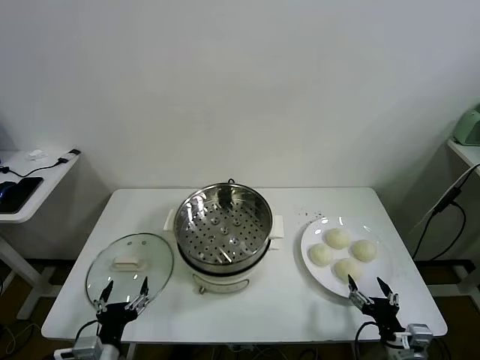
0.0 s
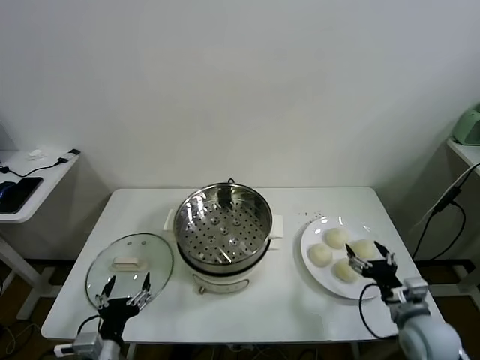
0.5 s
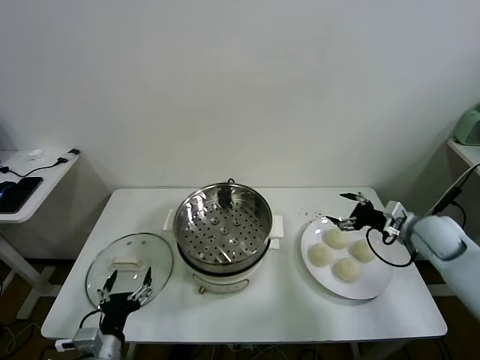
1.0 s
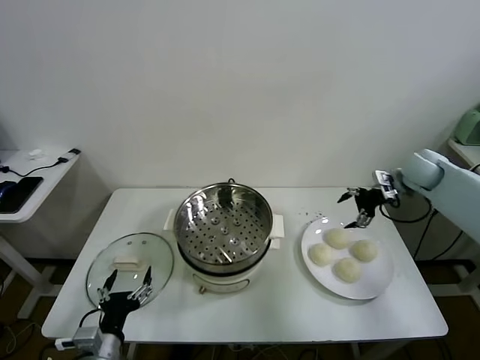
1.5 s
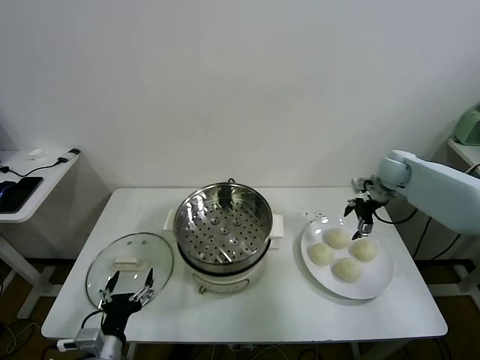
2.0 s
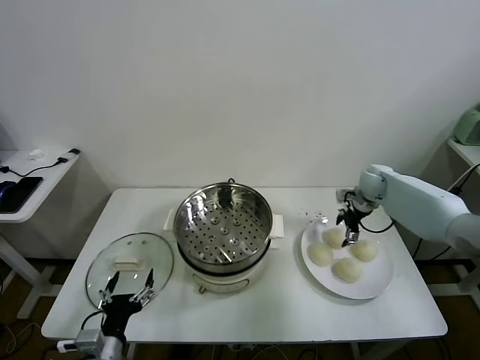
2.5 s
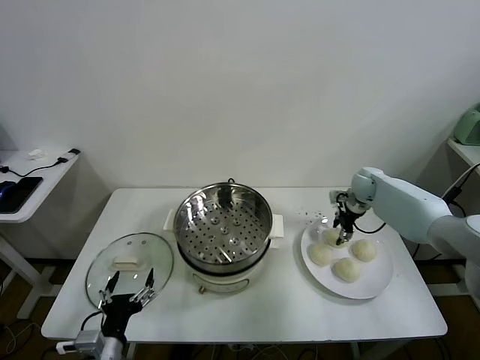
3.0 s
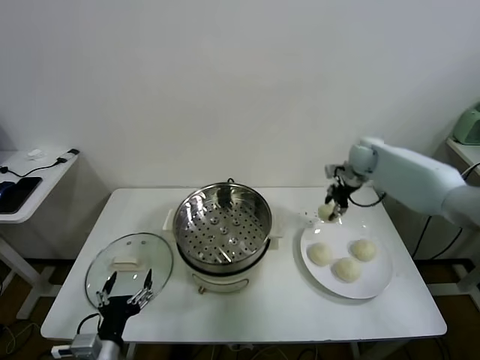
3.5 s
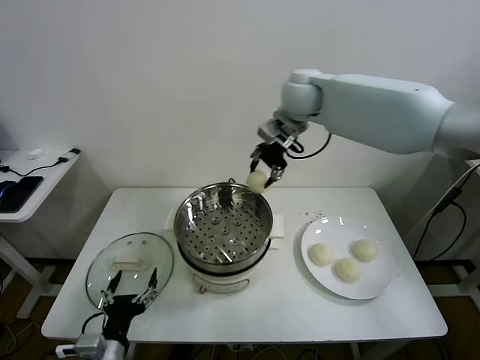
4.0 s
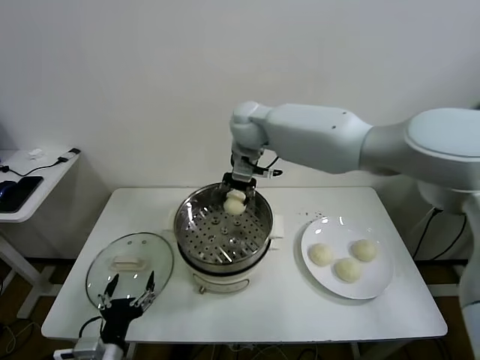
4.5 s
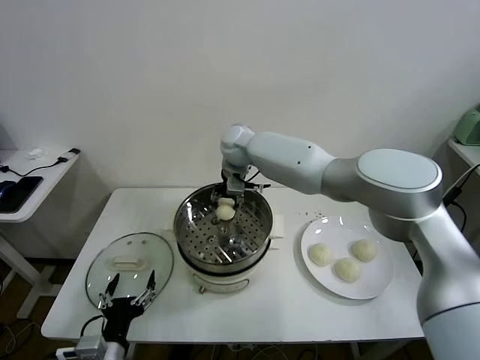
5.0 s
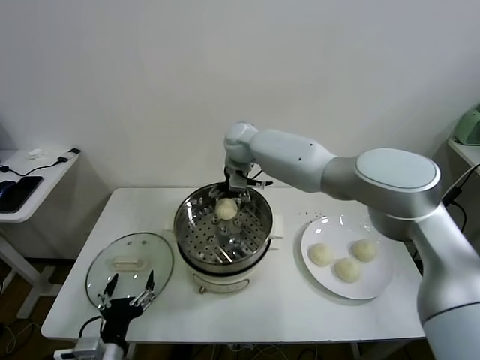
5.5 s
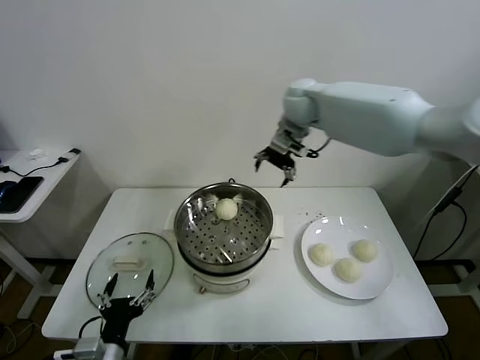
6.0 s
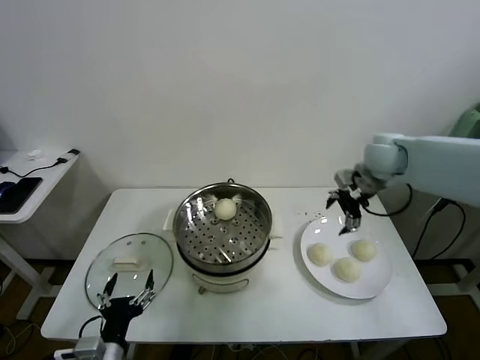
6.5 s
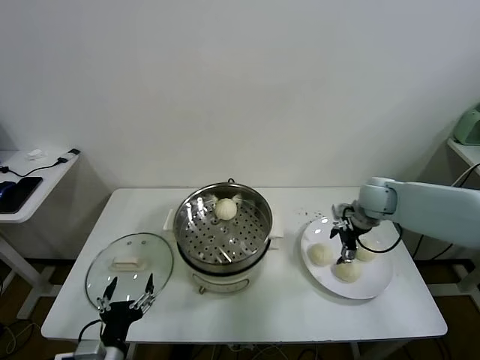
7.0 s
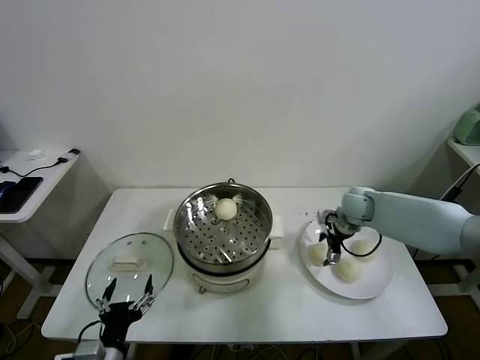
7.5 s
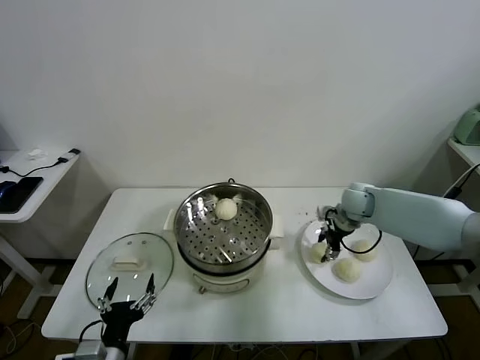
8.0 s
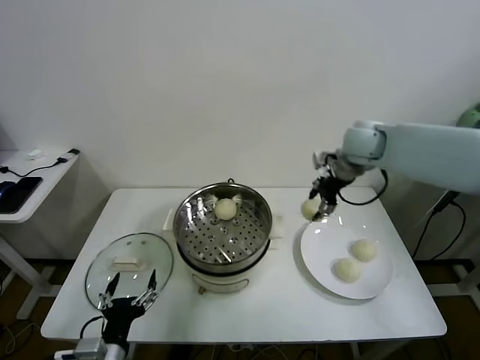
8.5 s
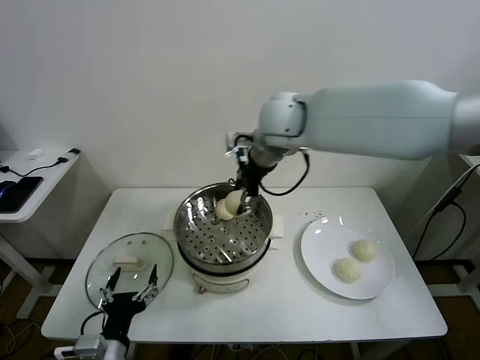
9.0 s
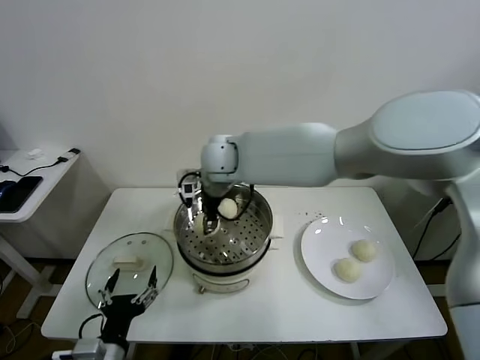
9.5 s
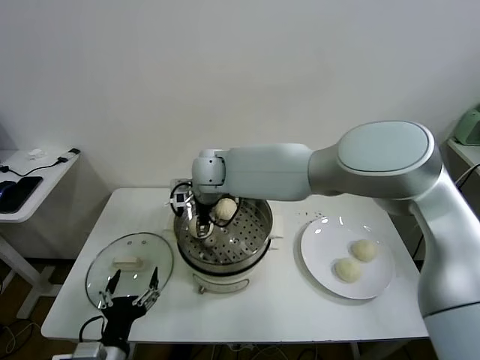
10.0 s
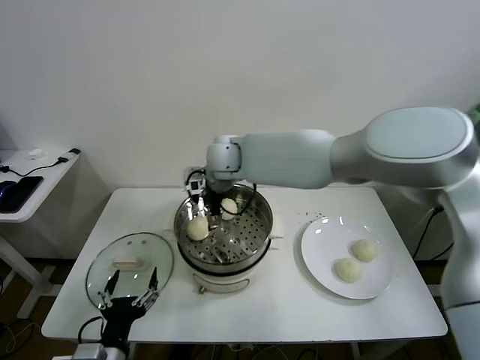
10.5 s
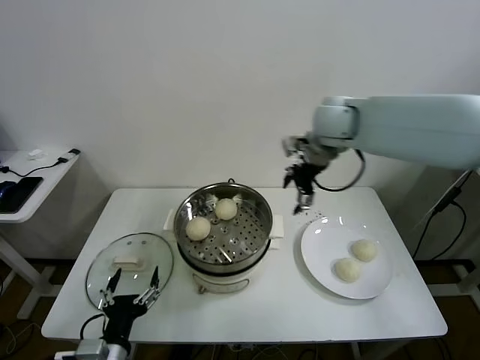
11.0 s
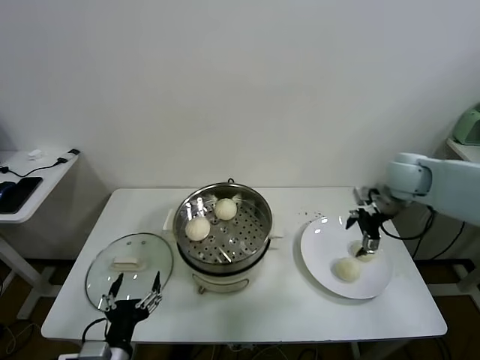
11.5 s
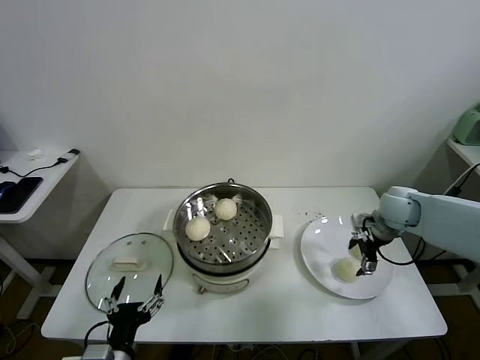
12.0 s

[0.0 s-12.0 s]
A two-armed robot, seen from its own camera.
Task of the whole recording: take steamed baozi put them in steamer.
Step, 0.0 to 2.5 s: Grasp the baozi in the plate with right gripper.
Step, 3.0 to 5.5 s: Place the baozi on the steamer with right gripper.
Step, 6.0 to 7.5 s: Grasp the baozi in the plate with right gripper.
Step, 8.0 to 10.0 s: Place the baozi on the steamer with right gripper.
2.0 to 4.0 s: The right gripper moves to the left and upward, about 35 cm, and closes.
4.0 to 6.0 s: The right gripper is displaced to the right by about 10 cm, and opens up.
6.0 to 8.0 s: The right gripper heads downward and to the right, covering roughly 25 cm, and closes.
8.0 to 10.0 s: The right gripper travels to the left by about 40 cm.
10.0 to 12.0 s: The right gripper moves to the right, about 40 cm, and opens its fingers.

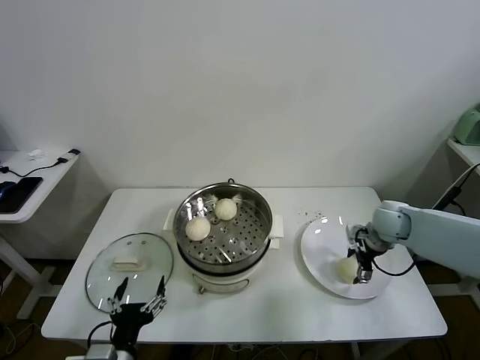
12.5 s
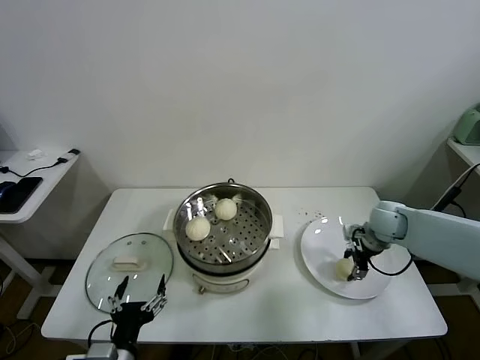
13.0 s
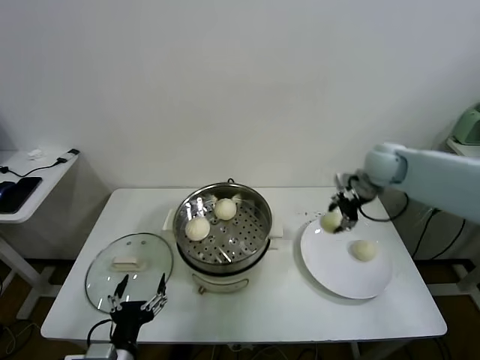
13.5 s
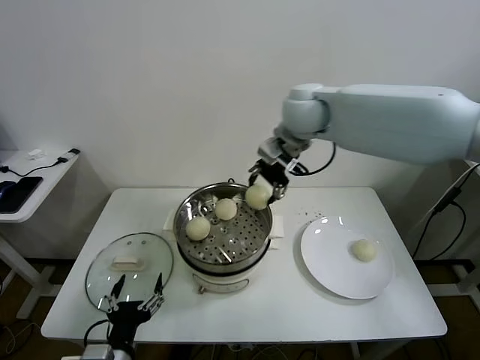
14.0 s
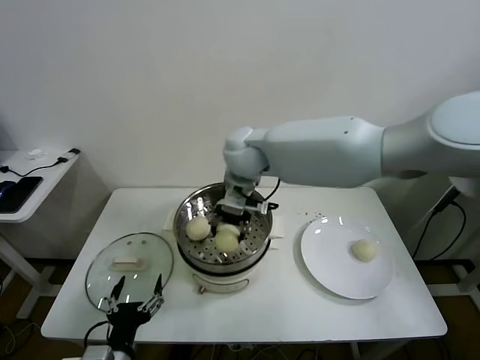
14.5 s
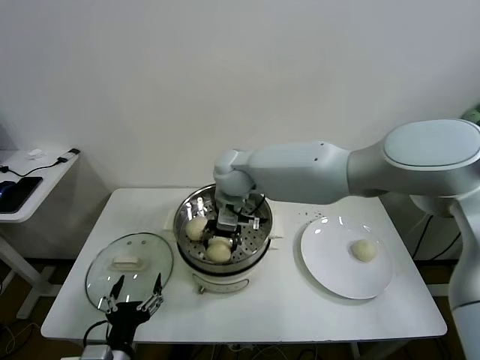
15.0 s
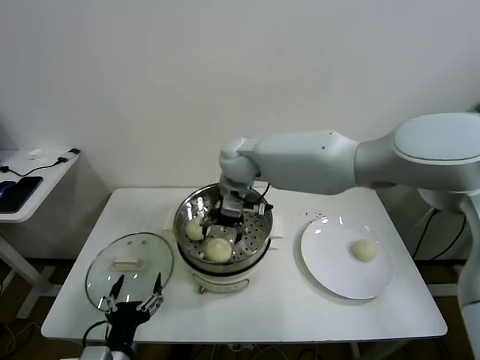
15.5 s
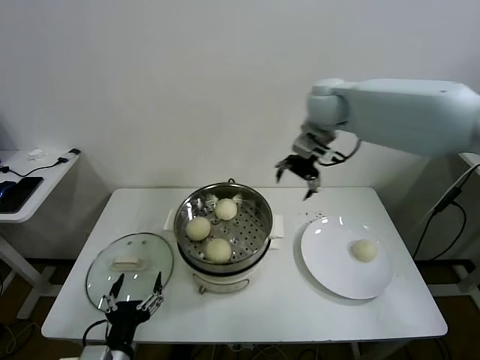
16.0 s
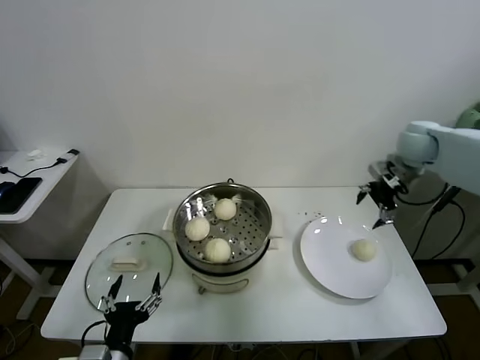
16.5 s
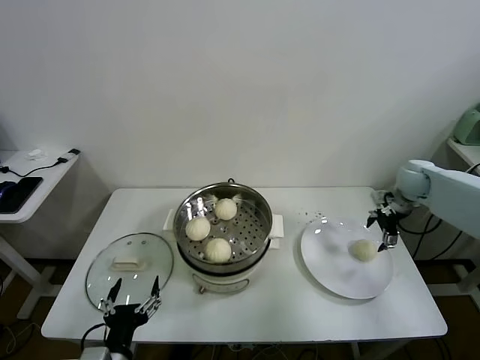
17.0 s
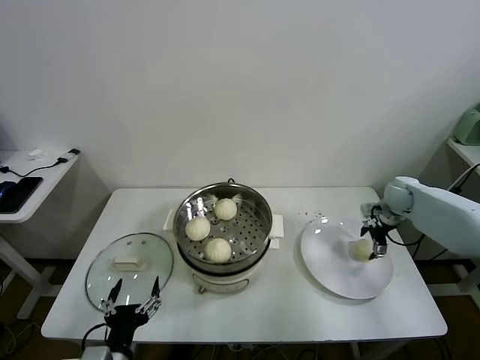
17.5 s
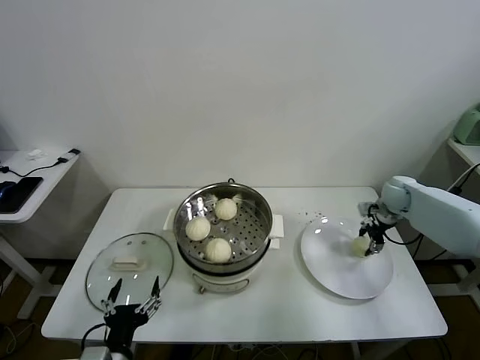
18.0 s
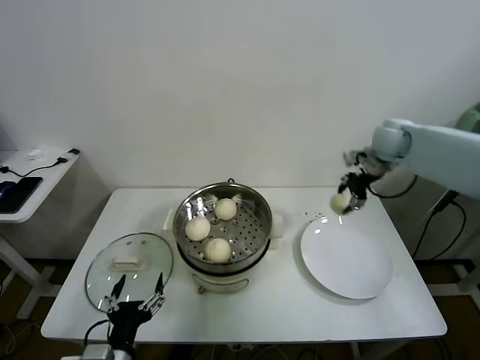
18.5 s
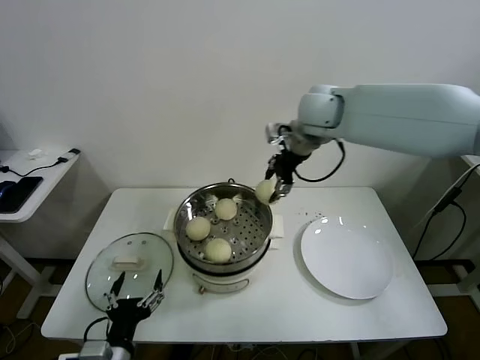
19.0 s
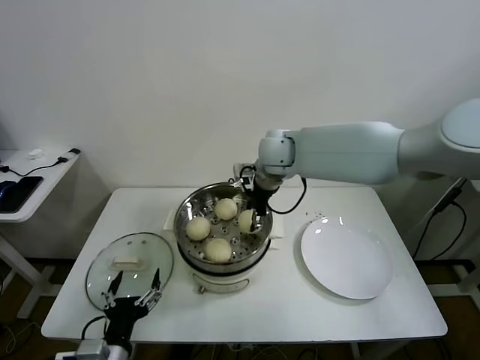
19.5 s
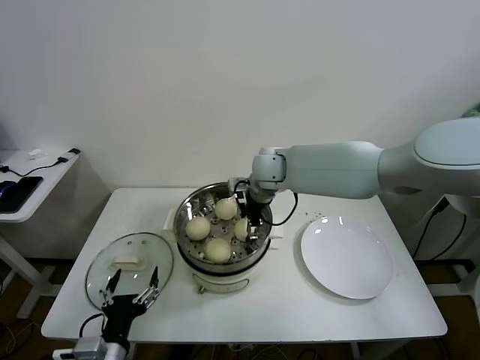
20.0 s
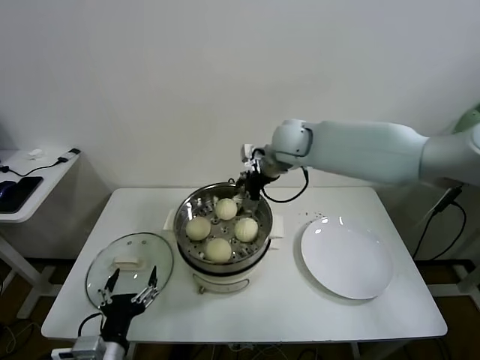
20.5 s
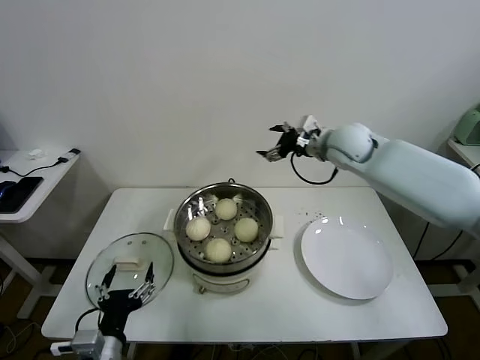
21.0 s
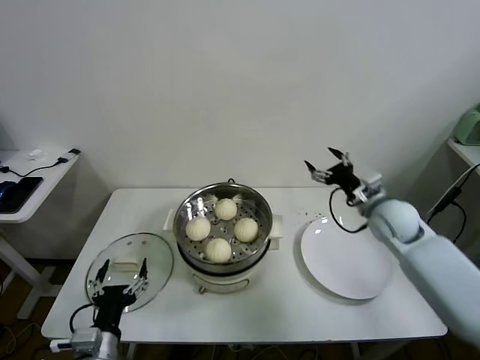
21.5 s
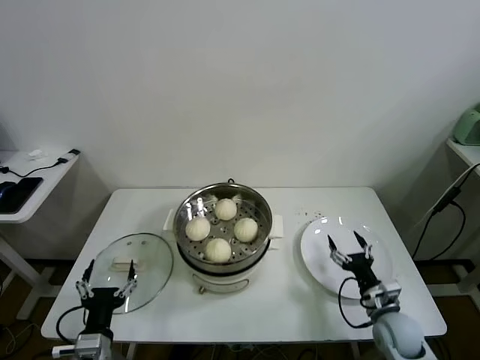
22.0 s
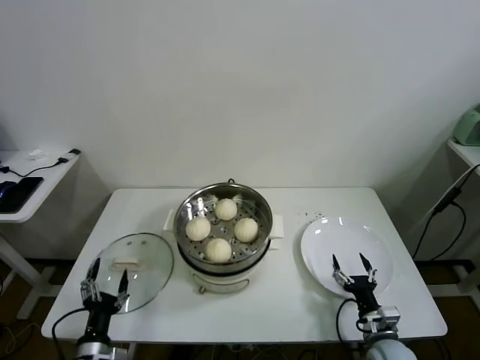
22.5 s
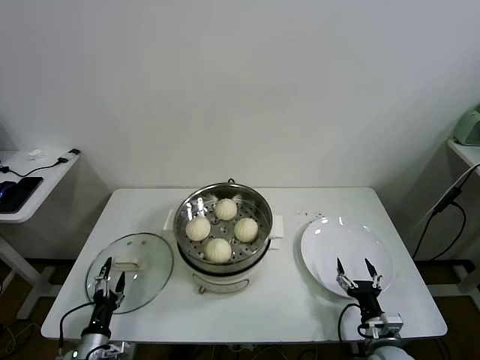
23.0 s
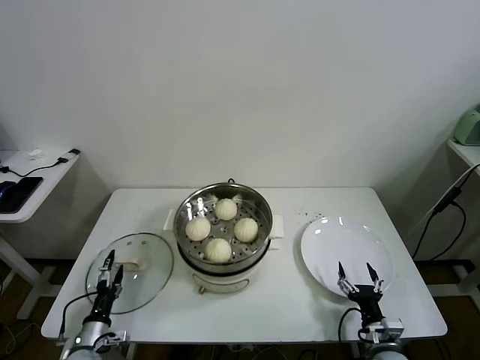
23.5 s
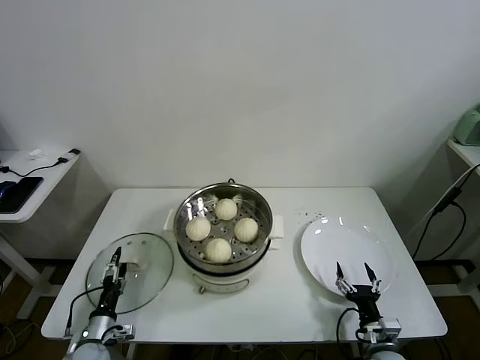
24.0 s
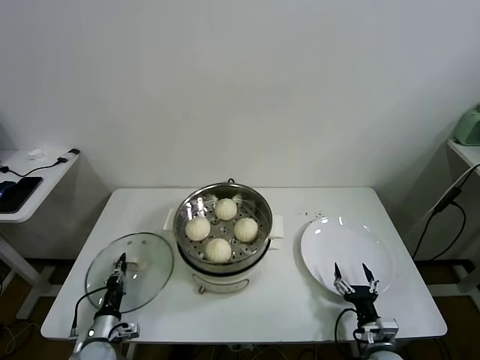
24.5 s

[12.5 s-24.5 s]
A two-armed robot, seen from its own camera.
Task of the whole recording: take steamed baozi put them in steamer.
Step, 13.0 to 15.0 s: Place the baozi on the steamer with right gripper.
Step, 15.5 to 17.5 s: Grasp the baozi in the plate with right gripper.
Step, 18.0 to 20.0 s: Place the baozi on the steamer with right gripper.
12.5 to 14.5 s: The right gripper moves to the left and upward, about 40 cm, and closes its fingers.
14.5 to 16.5 s: The right gripper heads to the right, covering about 40 cm, and opens.
16.5 to 18.5 s: The right gripper moves to the left, about 5 cm, reaches about 15 cm downward, then returns, and closes its fingers.
18.5 to 20.5 s: The right gripper shifts about 25 cm to the left, and opens.
20.5 to 22.5 s: The right gripper heads downward, backward and to the right, covering about 50 cm. The left gripper travels downward and to the left by some 15 cm.
22.5 to 24.5 s: The left gripper goes roughly 10 cm downward and forward, and closes up.

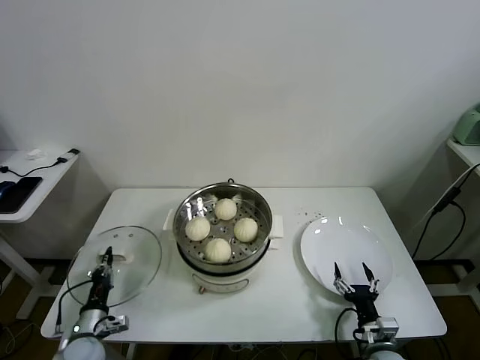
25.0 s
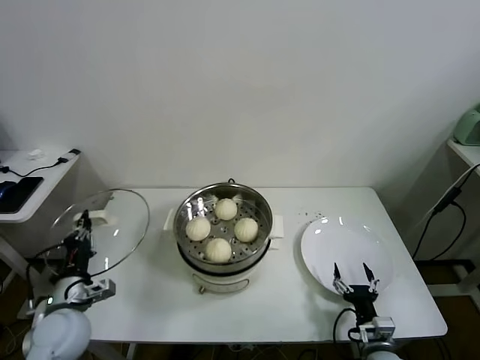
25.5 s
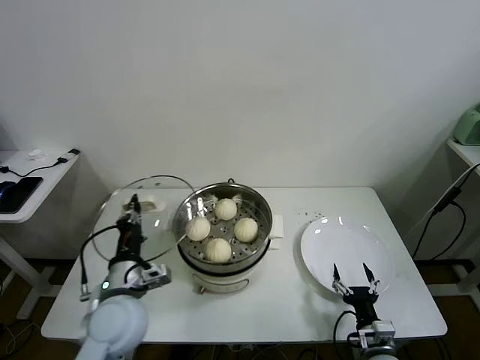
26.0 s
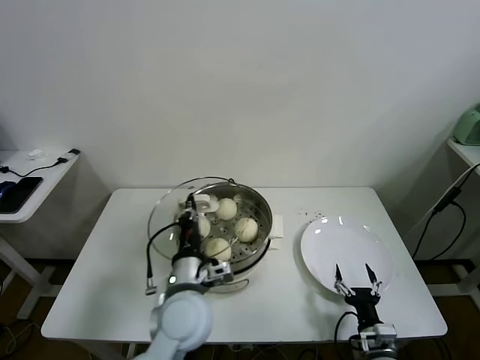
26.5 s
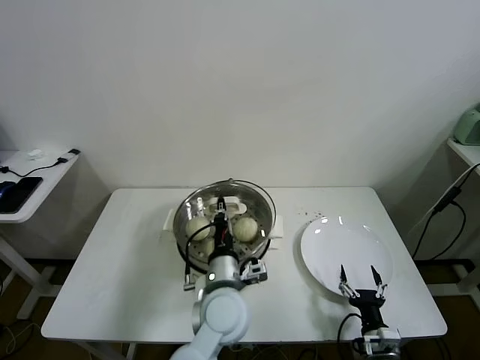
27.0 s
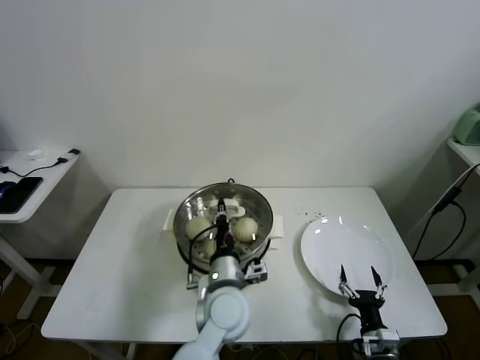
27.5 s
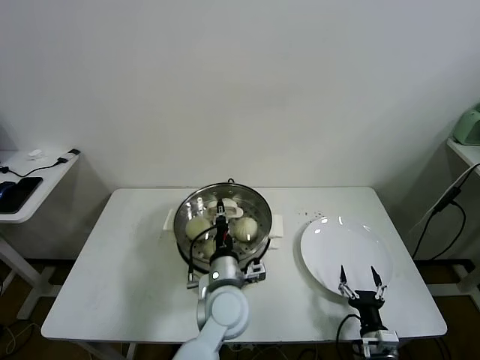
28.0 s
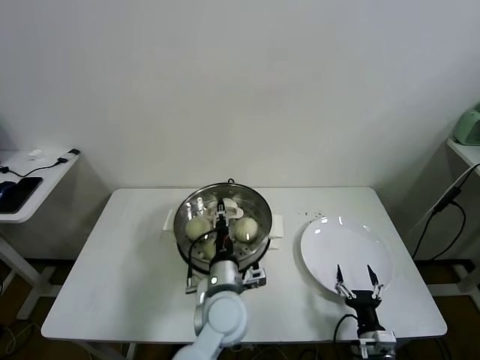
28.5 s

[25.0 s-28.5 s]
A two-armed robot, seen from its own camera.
Task of the whole recording: take steamed baozi put them in steamer.
25.0 to 27.0 s: The left gripper goes some 40 cm to the right and upward.
27.0 to 28.5 s: The grippers make only small movements.
